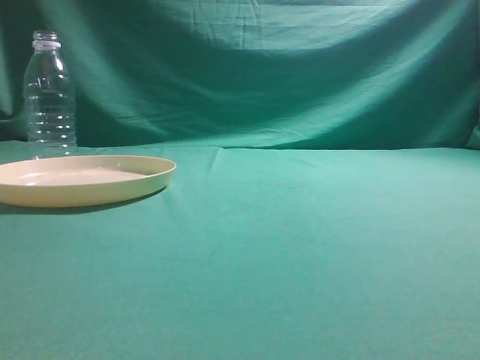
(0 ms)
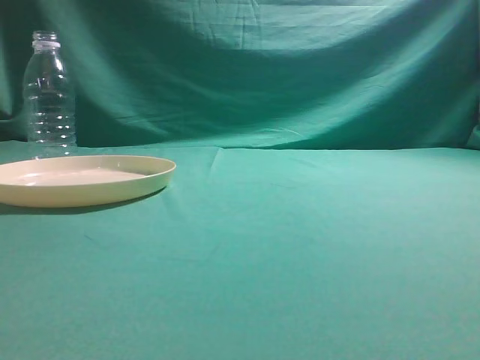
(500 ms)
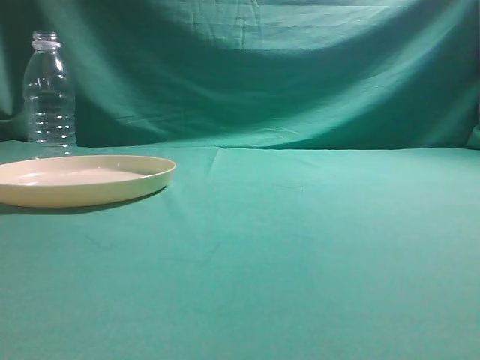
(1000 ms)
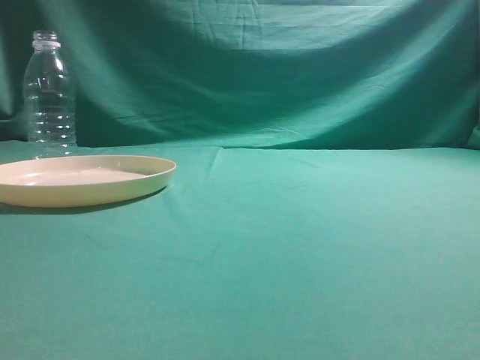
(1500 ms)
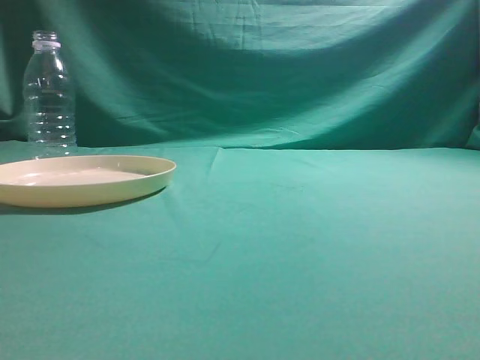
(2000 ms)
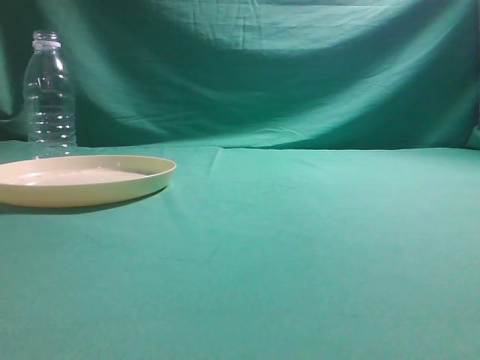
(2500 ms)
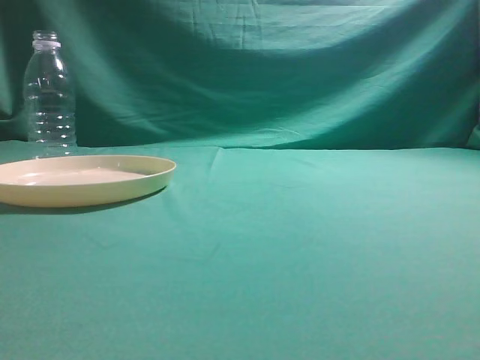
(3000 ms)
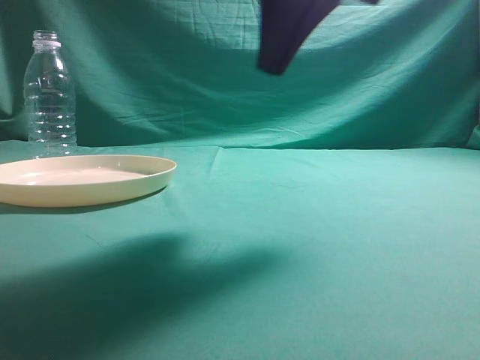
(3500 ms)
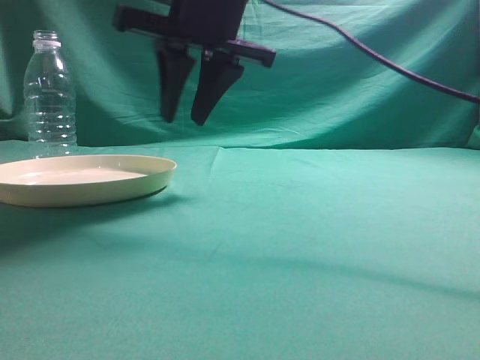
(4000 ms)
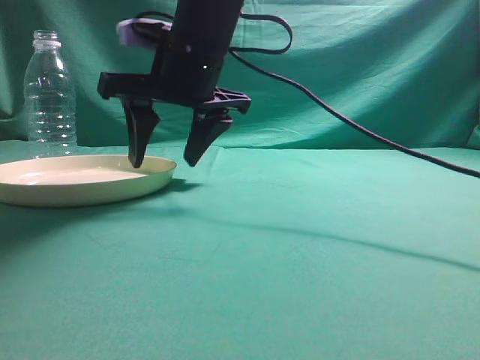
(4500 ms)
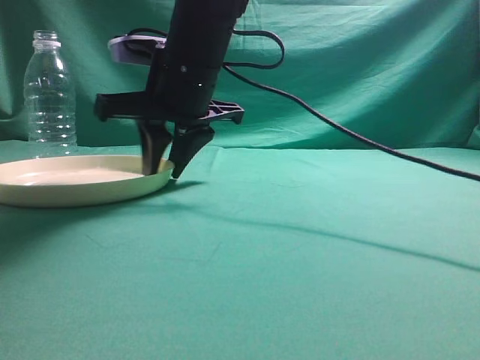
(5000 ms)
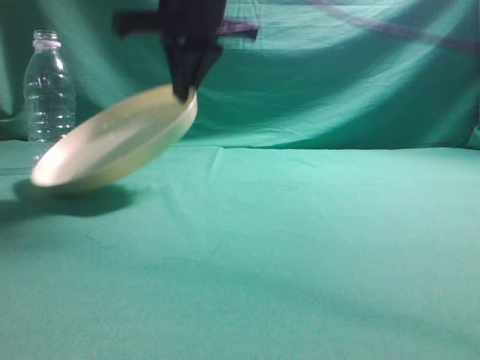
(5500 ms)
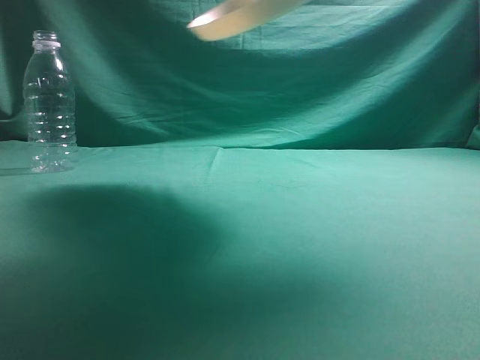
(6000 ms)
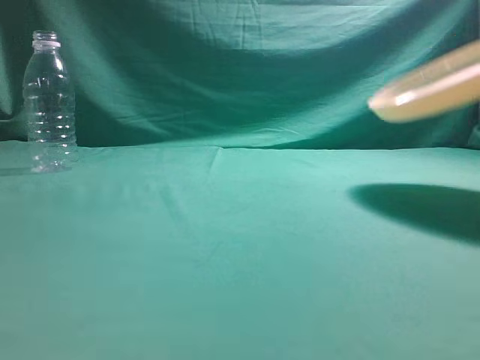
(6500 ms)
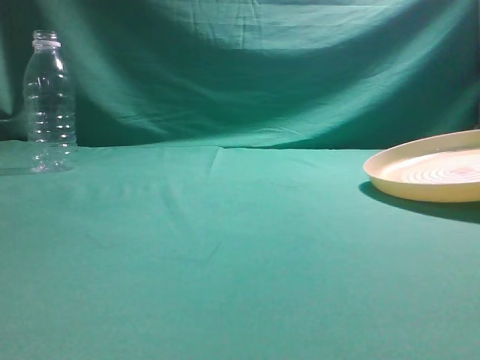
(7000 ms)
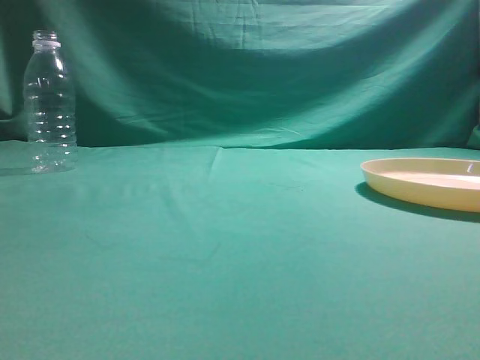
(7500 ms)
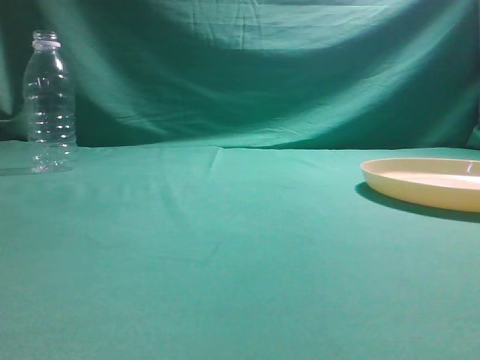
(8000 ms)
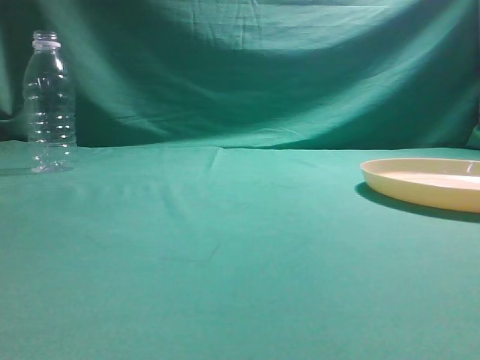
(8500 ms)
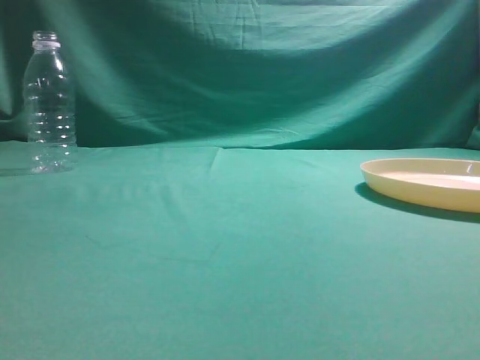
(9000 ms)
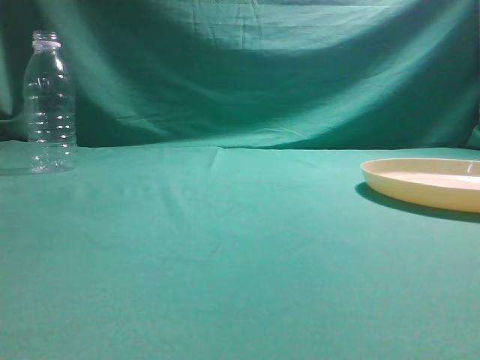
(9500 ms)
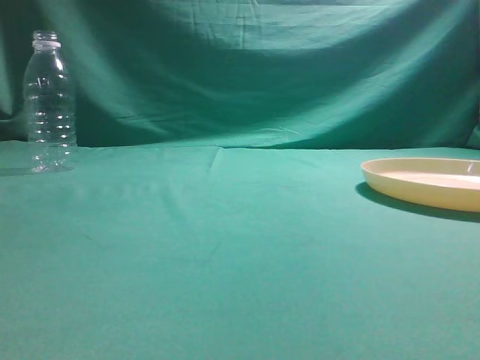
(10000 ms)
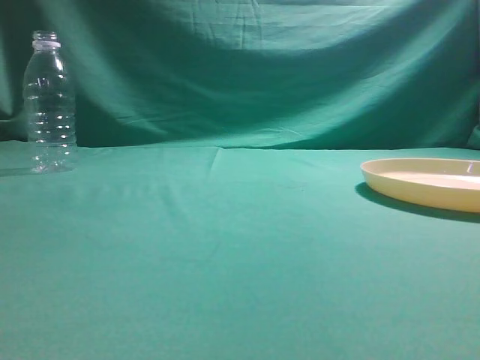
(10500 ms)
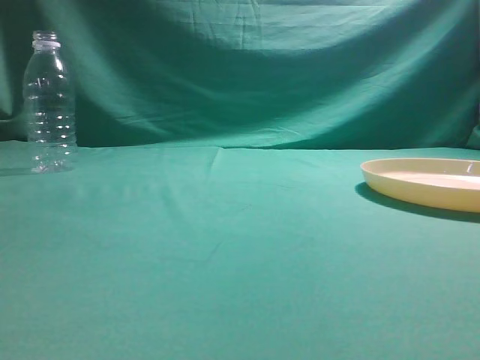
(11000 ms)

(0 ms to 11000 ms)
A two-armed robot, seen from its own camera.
Step, 0 ms - 5500 ms: Pick the container that can hold fruits.
Step, 6000 ms - 7000 ms: Move the picked object to the right side of the table.
2000 ms - 3500 ms: The right gripper is displaced forward and to the left by roughly 30 cm.
3500 ms - 5500 ms: The right gripper moves to the left and forward, roughly 20 cm, and opens, then closes again.
5500 ms - 7500 ms: The right gripper shifts approximately 35 cm to the right, and opens.

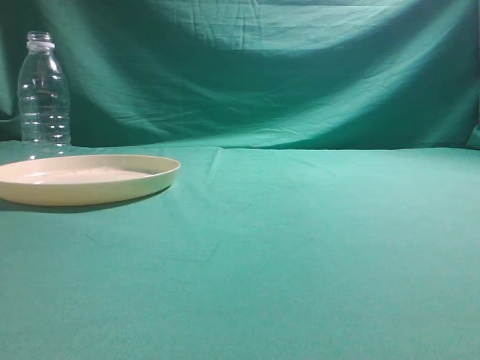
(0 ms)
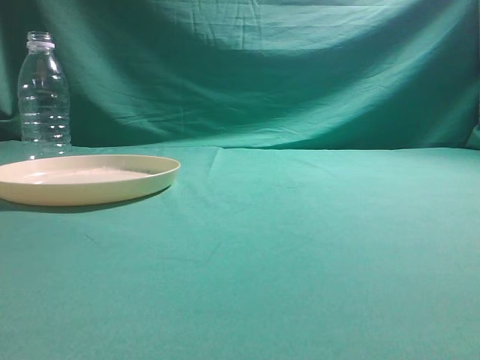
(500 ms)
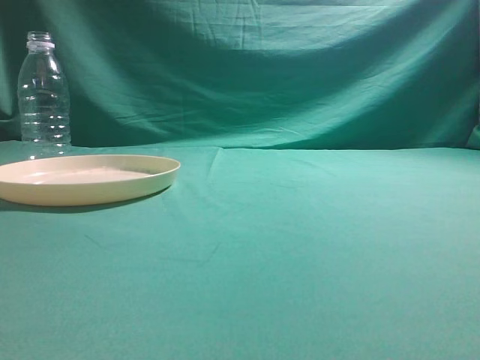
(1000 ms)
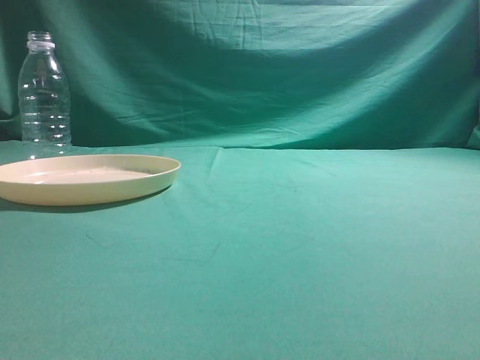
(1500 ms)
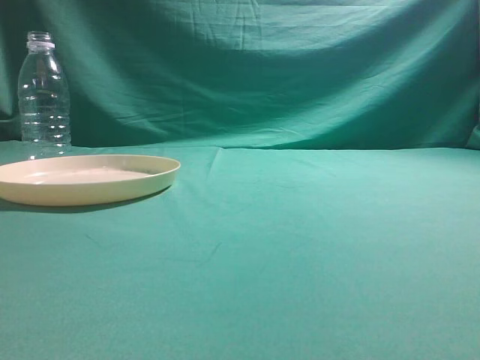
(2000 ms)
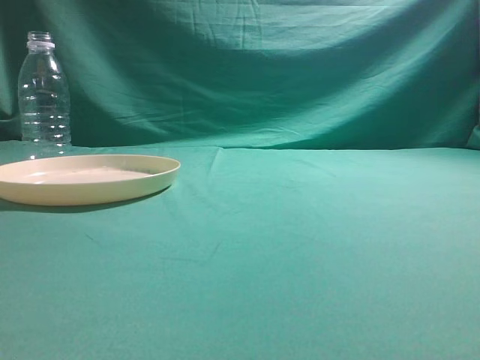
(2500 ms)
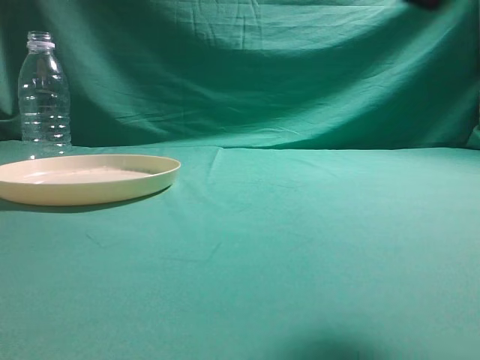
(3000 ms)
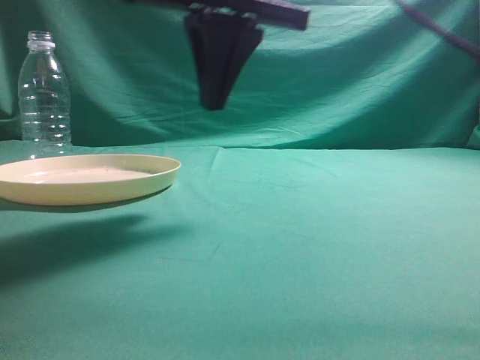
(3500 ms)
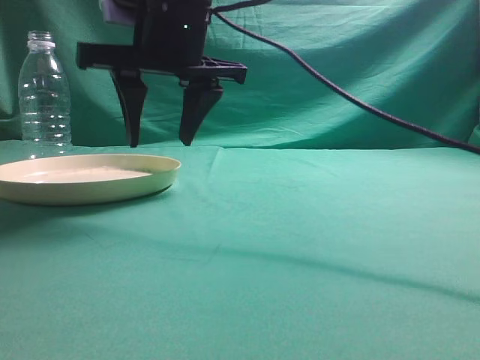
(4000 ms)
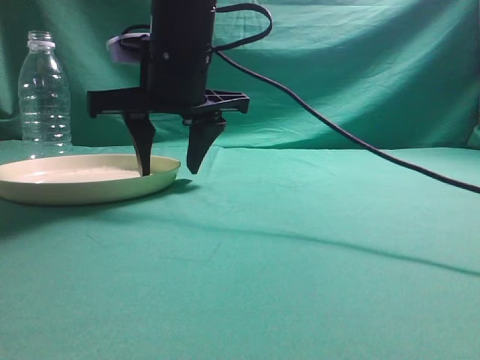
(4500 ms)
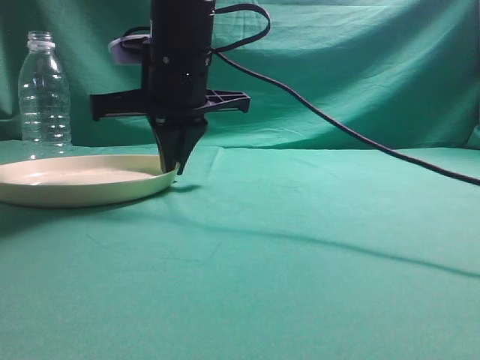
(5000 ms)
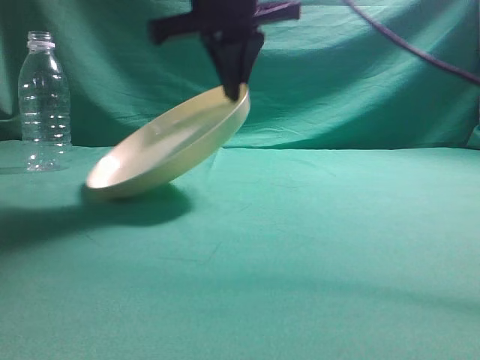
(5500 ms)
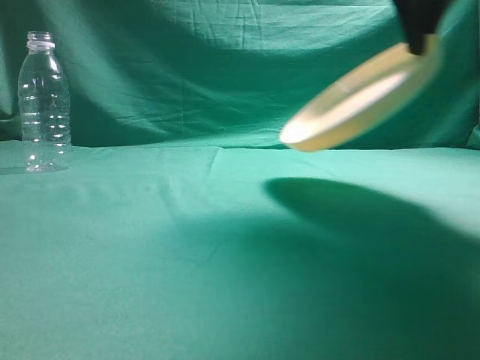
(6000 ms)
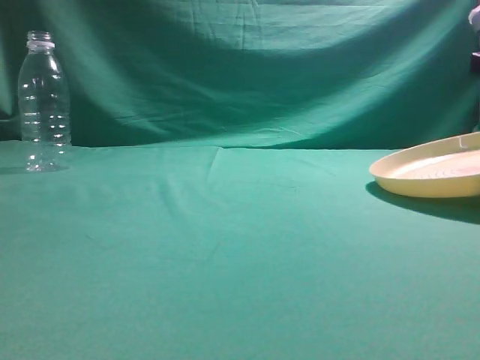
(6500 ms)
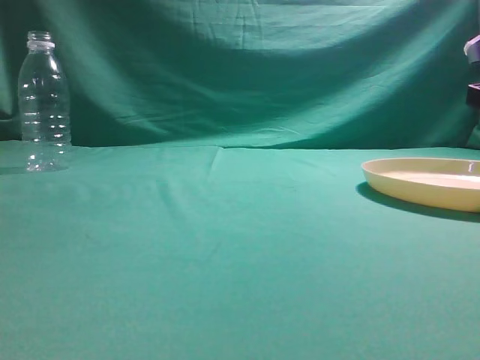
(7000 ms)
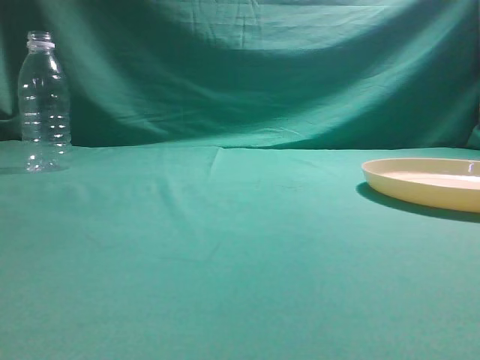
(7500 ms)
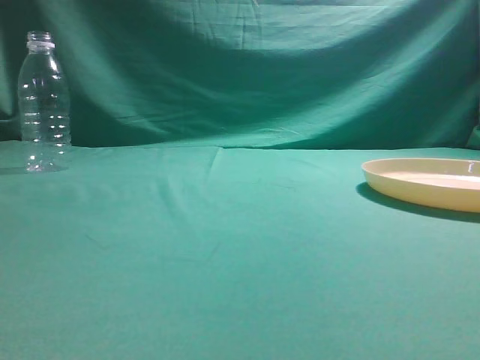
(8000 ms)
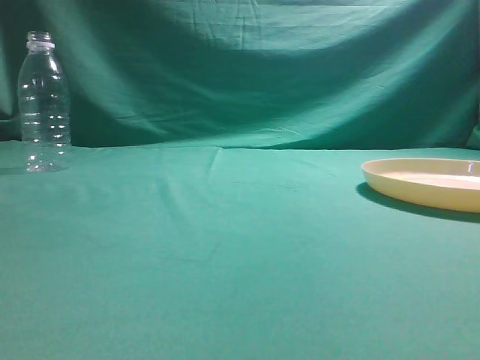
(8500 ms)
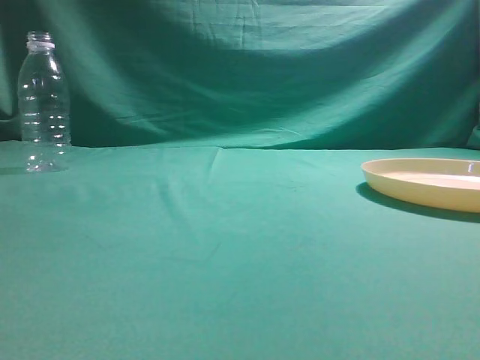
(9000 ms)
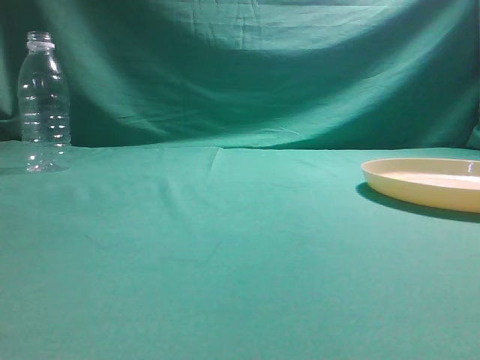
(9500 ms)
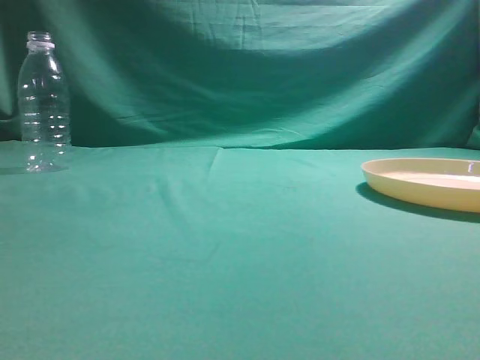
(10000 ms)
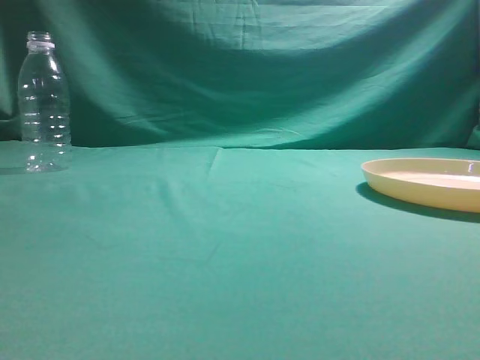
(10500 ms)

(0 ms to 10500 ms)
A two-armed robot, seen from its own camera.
Step, 0 ms - 5500 ms: Pick the container that can hold fruits.
Step, 6000 ms - 7500 ms: Move the picked object to the right side of the table.
2000 ms - 4000 ms: The right gripper travels to the left and forward by approximately 40 cm, and opens its fingers.
4000 ms - 6500 ms: The right gripper shifts approximately 35 cm to the right, and closes.
6500 ms - 8500 ms: The right gripper heads backward and upward, covering about 35 cm, and opens and closes again.
